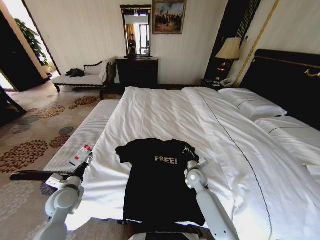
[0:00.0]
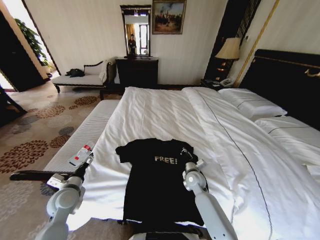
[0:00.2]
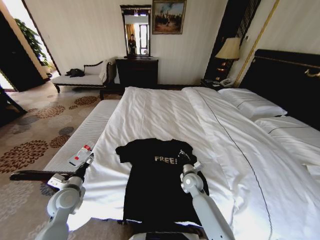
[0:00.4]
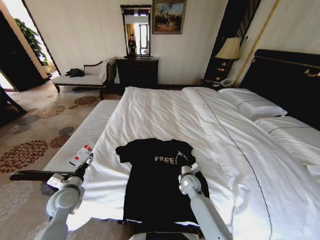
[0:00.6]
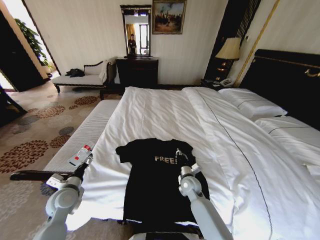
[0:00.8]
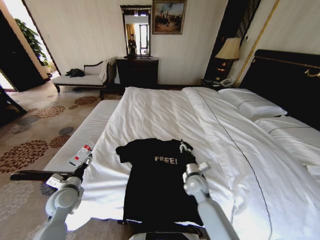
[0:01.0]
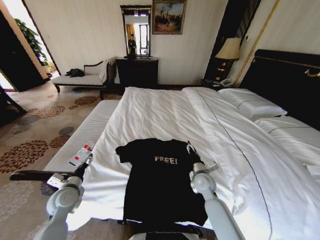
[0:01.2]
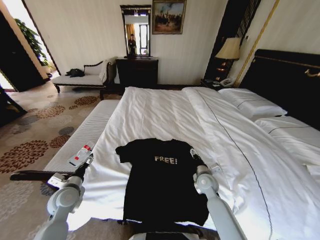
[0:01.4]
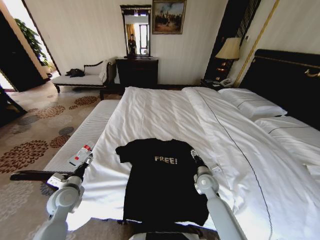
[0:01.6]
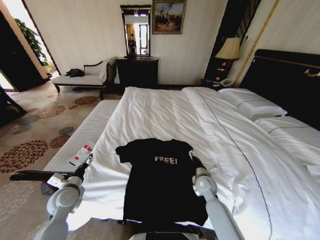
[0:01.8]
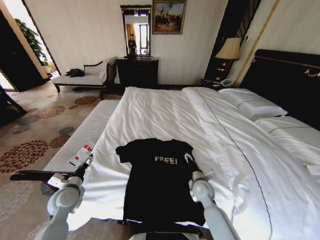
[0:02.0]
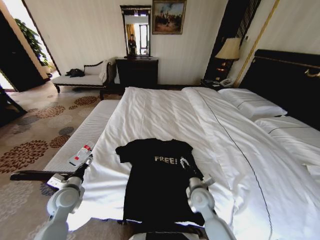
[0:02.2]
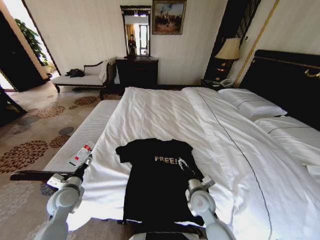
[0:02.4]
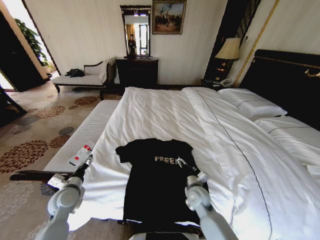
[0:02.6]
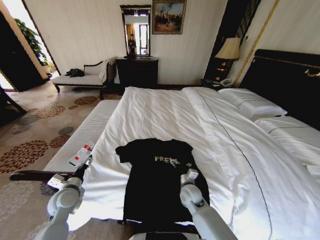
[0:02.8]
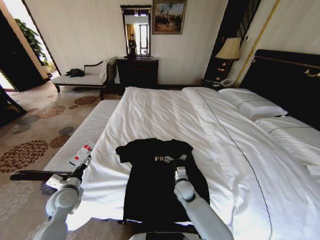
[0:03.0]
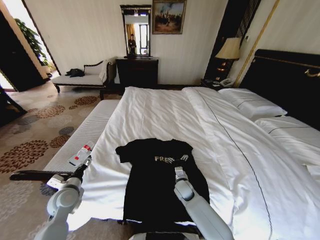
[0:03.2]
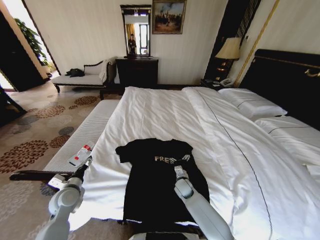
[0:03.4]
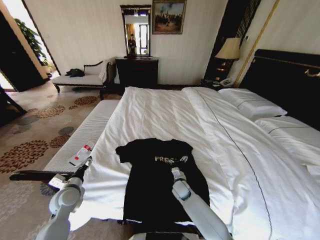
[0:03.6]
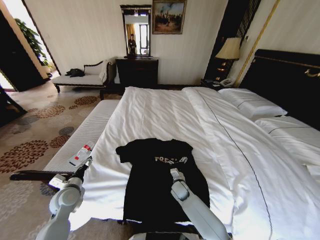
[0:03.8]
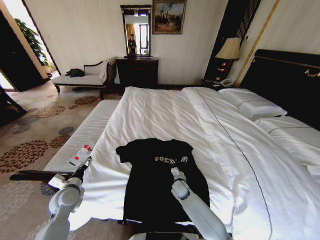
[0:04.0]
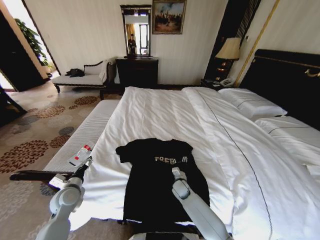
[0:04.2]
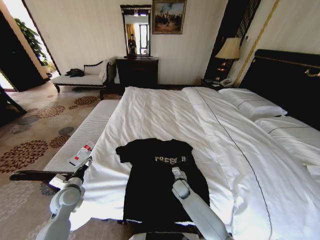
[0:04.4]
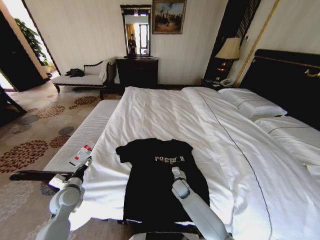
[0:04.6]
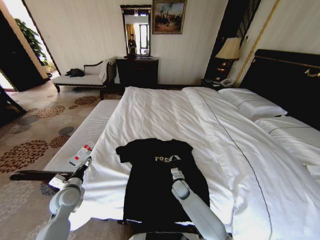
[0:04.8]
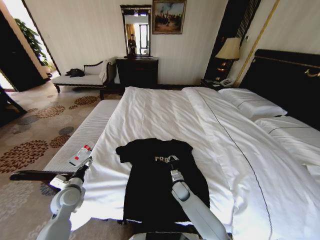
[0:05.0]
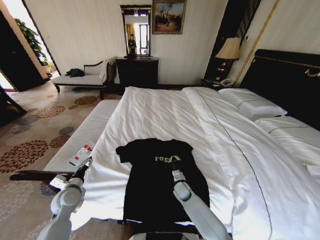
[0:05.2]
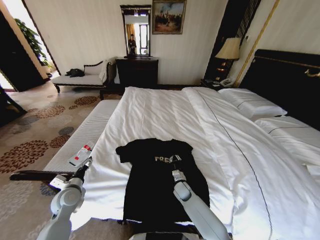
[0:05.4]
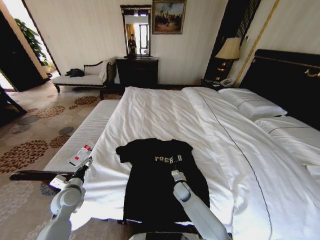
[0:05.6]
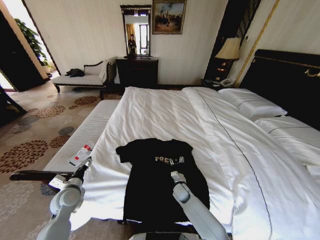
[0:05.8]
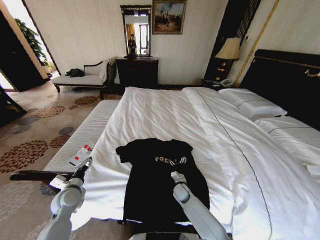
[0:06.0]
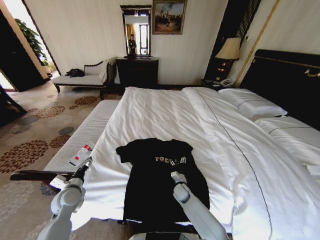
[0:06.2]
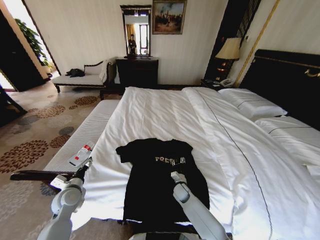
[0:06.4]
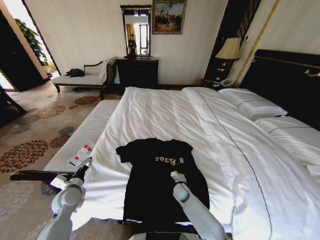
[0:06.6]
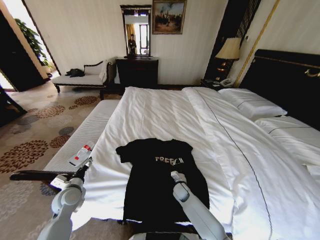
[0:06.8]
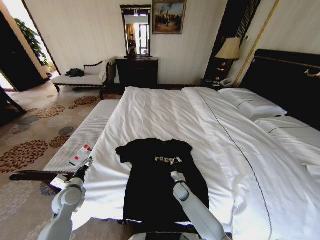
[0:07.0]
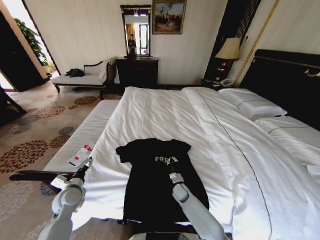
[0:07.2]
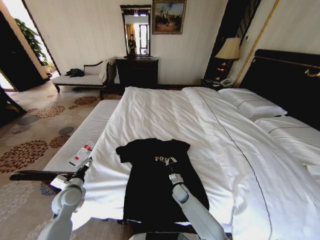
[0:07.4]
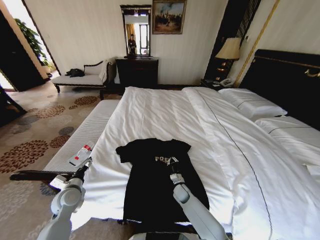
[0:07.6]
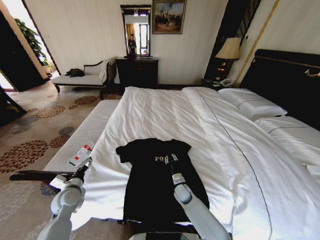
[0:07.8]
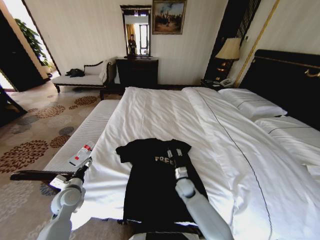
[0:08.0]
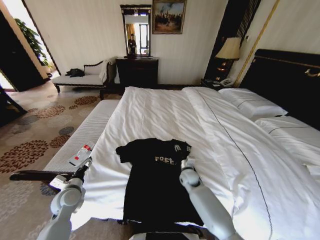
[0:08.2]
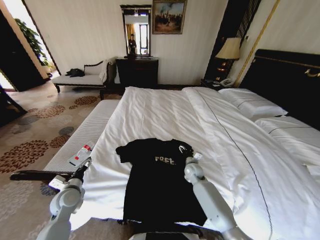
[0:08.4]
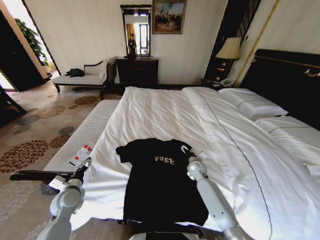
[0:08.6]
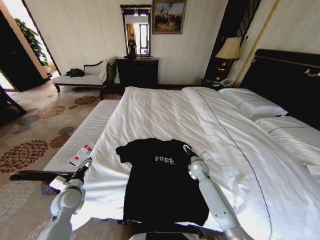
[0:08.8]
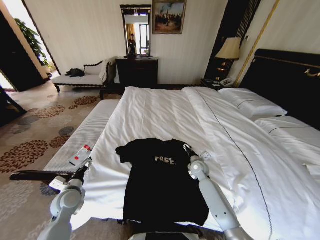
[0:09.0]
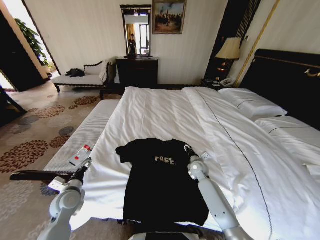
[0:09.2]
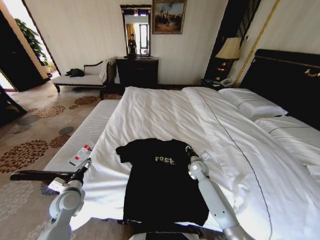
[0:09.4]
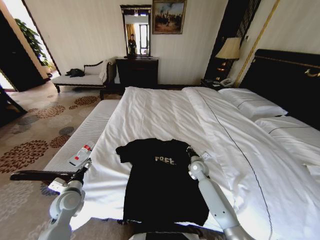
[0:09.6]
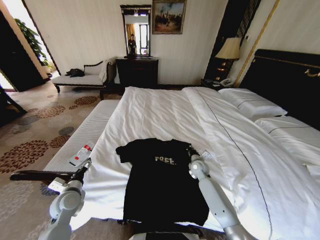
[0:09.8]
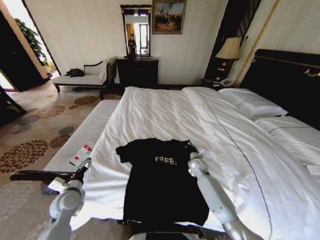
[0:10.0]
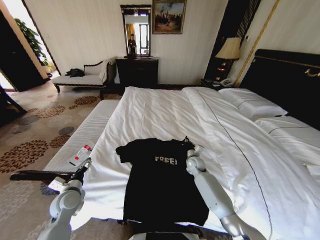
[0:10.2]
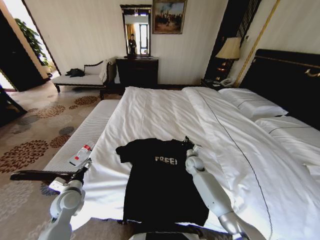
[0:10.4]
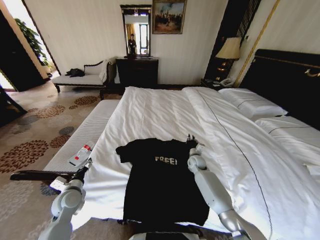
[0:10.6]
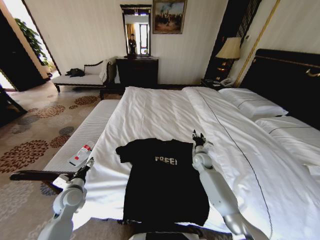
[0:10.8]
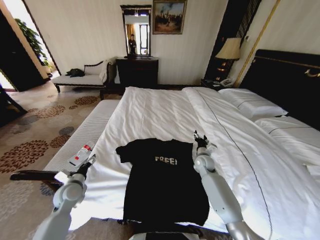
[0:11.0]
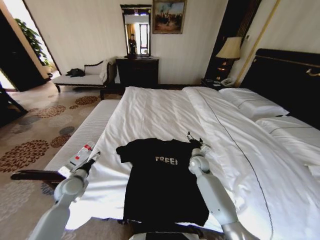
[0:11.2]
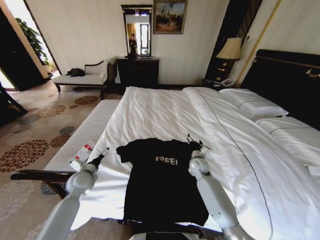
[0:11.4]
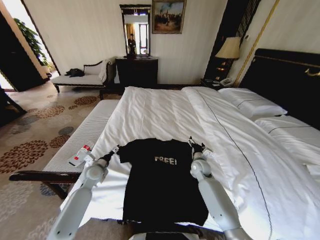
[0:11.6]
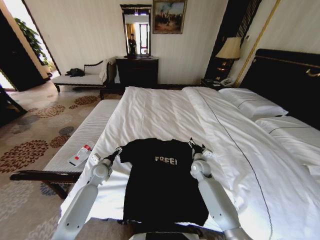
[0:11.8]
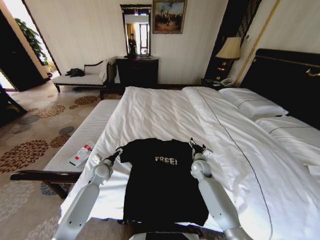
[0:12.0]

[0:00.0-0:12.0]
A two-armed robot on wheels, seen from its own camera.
Task of the whole recording: Fold the clothes on the bed.
0:00.0 to 0:01.6: The right gripper moves some 5 cm, and opens up.
0:01.6 to 0:03.0: The right gripper heads to the left, covering some 10 cm.
0:03.0 to 0:04.4: The right gripper shifts roughly 5 cm downward, and closes.
0:04.4 to 0:06.0: The right gripper opens its fingers.
0:06.0 to 0:07.6: The right gripper closes its fingers.
0:07.6 to 0:09.0: The right gripper is displaced upward, to the right and forward by some 20 cm, and opens its fingers.
0:09.0 to 0:10.4: The right gripper closes.
0:10.4 to 0:12.0: The left gripper travels forward and to the right by approximately 15 cm. The right gripper opens up.

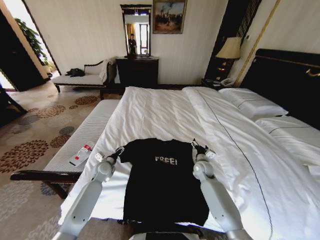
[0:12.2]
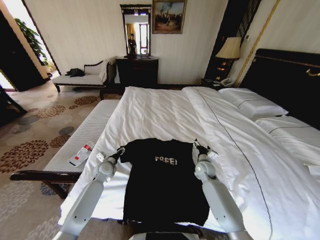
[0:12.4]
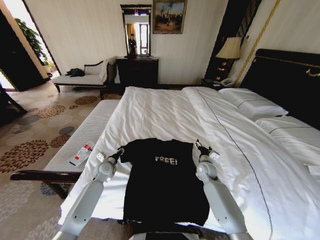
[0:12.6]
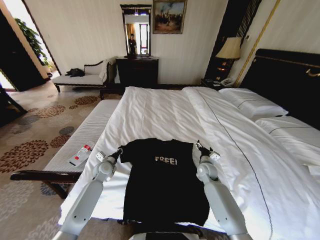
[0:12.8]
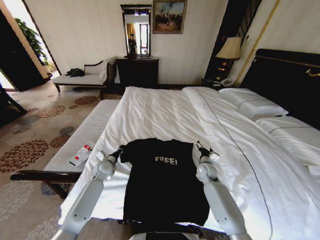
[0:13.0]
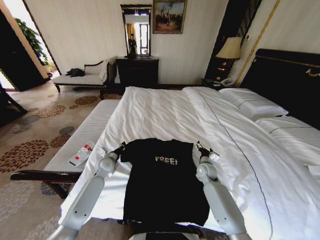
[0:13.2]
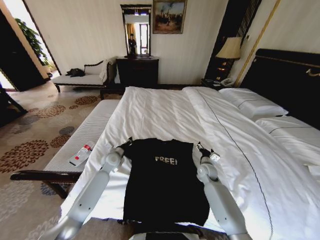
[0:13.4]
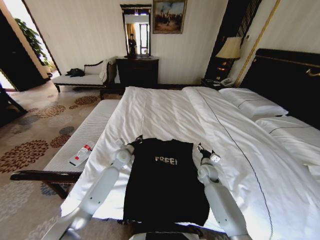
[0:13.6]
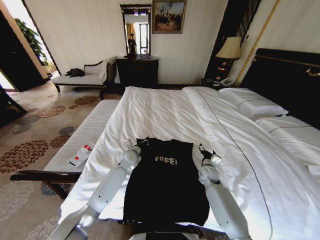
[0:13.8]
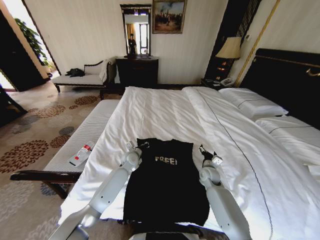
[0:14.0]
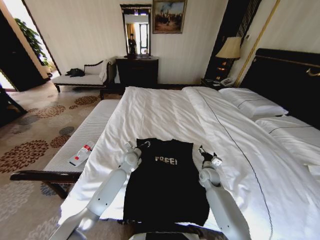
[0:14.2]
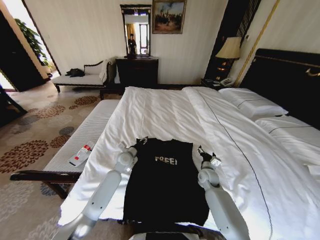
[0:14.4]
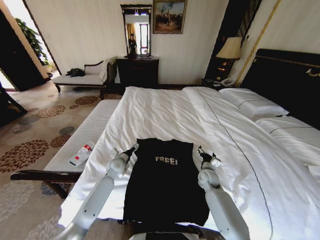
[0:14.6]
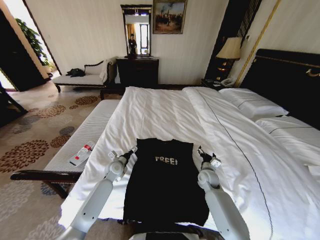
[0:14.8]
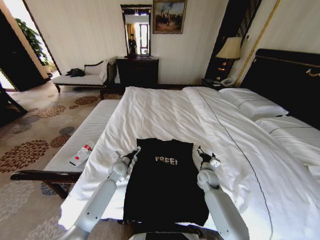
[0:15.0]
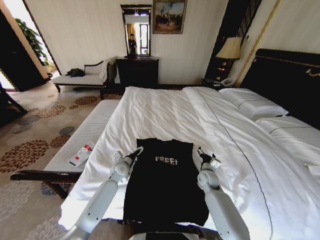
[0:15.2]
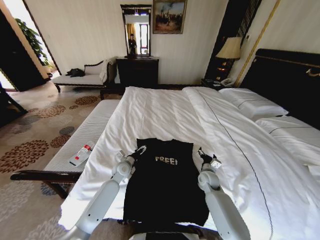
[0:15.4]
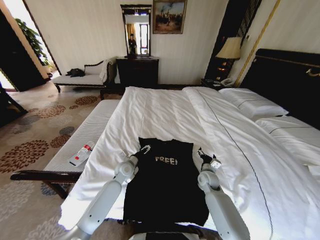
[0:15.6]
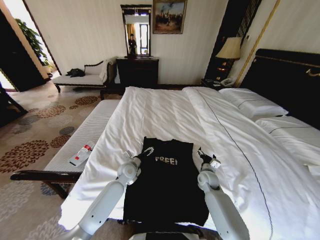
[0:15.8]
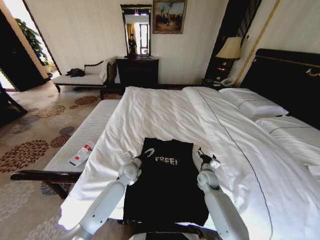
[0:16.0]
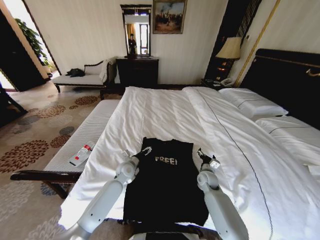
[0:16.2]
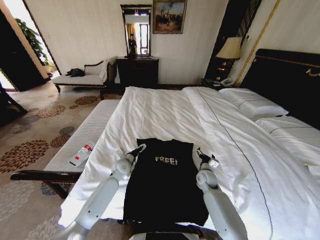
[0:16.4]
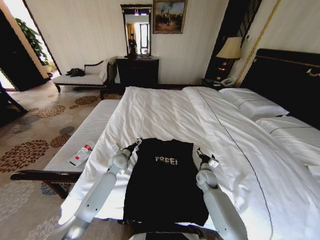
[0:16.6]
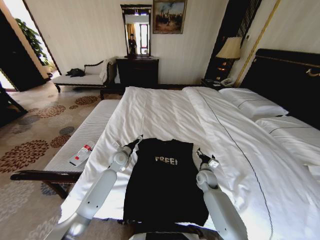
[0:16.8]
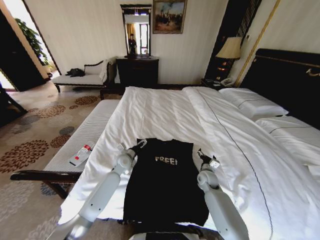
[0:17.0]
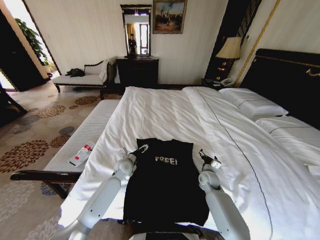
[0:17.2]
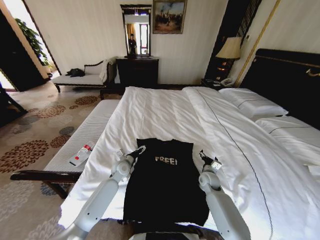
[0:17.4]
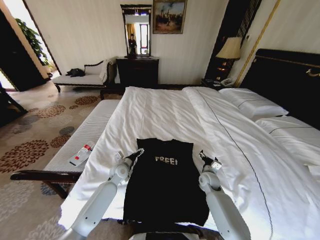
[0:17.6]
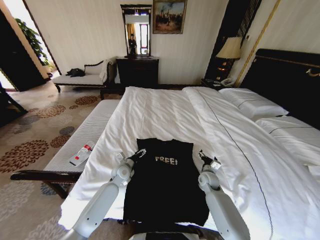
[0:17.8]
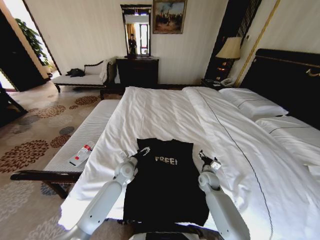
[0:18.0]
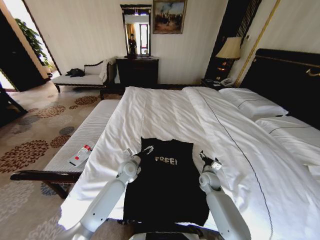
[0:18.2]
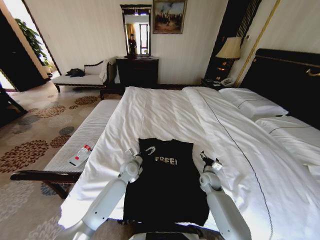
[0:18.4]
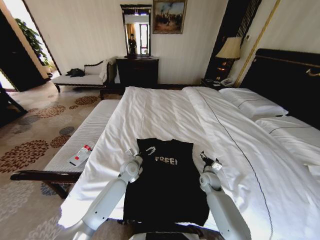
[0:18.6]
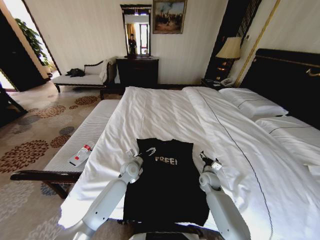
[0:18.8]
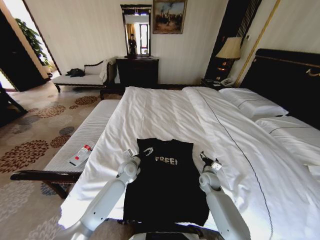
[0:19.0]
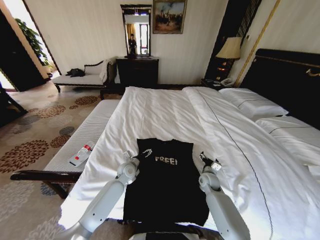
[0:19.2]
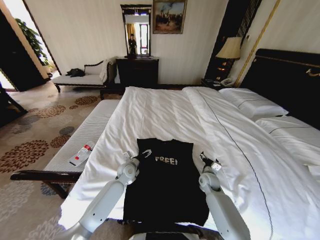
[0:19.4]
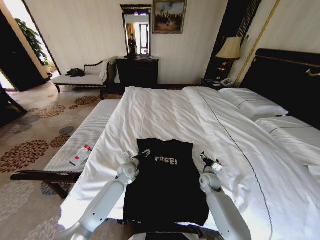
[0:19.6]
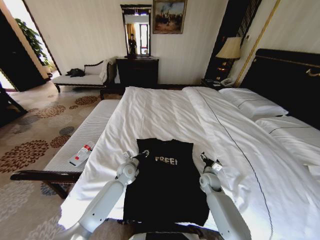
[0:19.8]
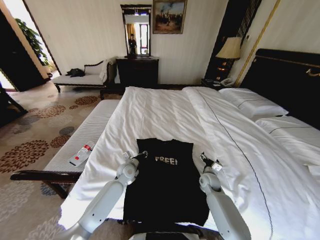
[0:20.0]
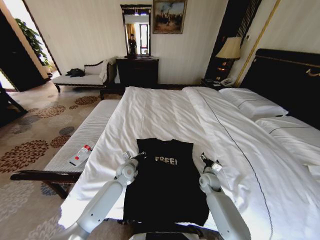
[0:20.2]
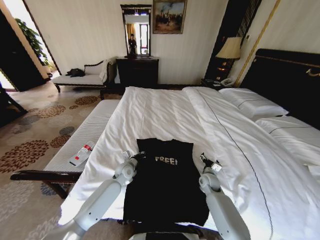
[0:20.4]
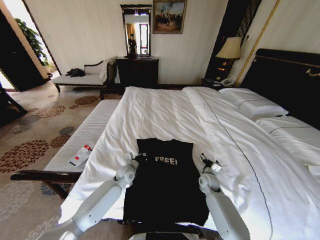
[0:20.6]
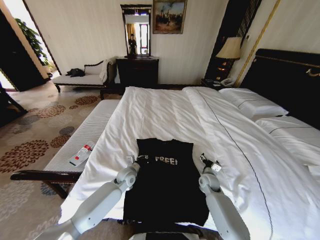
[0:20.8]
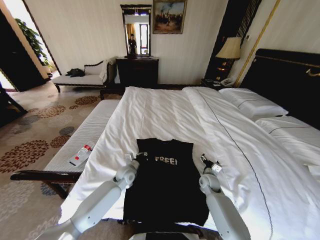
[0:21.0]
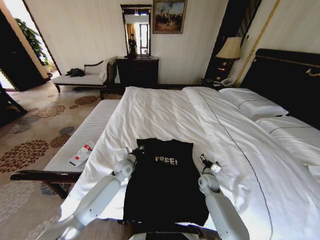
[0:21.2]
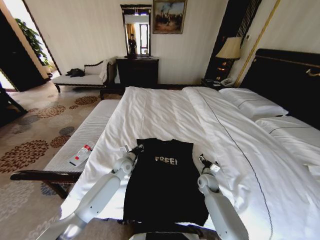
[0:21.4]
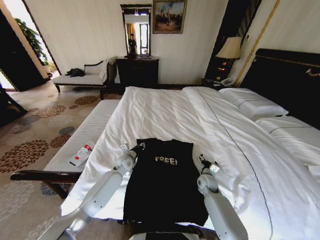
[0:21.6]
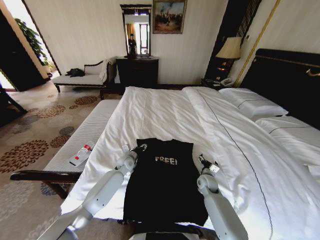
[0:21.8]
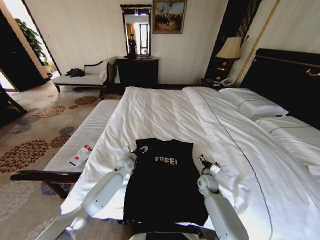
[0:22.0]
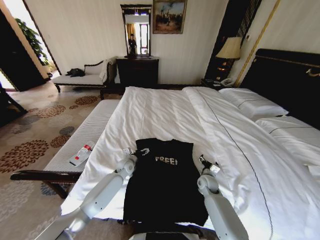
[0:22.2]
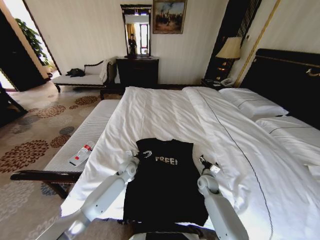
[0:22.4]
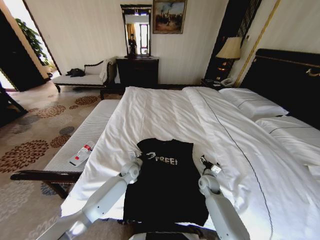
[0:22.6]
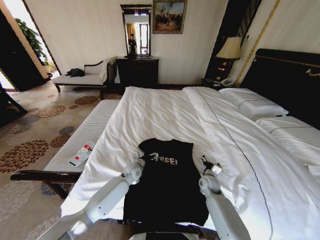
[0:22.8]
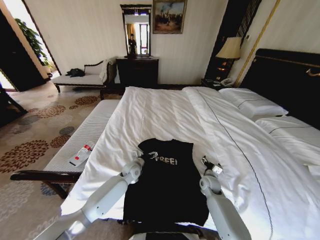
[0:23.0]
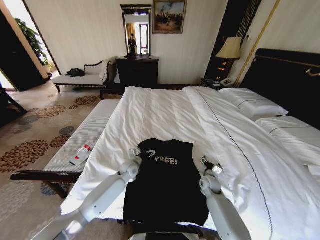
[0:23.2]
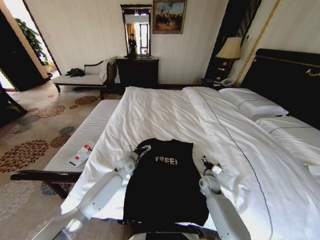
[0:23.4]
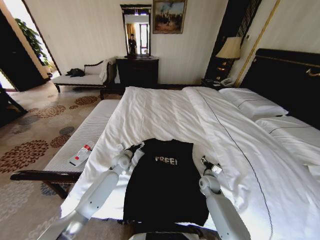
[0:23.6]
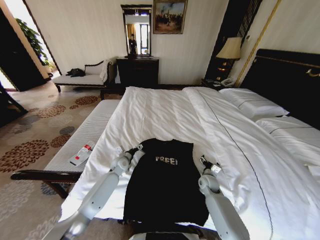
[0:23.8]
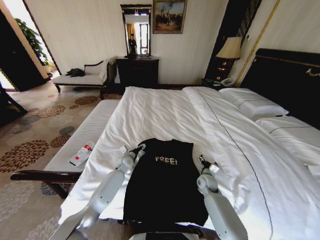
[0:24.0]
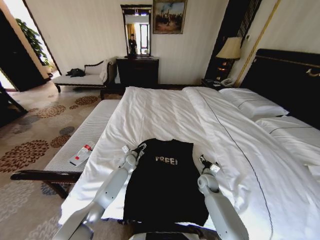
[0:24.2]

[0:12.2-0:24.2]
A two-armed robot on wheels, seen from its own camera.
Task of the whole recording: Fold the clothes on the bed.
0:12.2 to 0:13.8: The left gripper shifts approximately 15 cm to the right, and closes.
0:13.8 to 0:15.2: The left gripper changes place by some 10 cm, and opens.
0:15.2 to 0:16.6: The grippers make only small movements.
0:16.6 to 0:18.2: The left gripper is displaced to the right by approximately 5 cm.
0:18.2 to 0:19.8: The left gripper closes its fingers.
0:19.8 to 0:21.2: The left gripper closes up.
0:21.2 to 0:22.6: The left gripper opens up.
0:22.6 to 0:24.2: The left gripper moves forward, approximately 5 cm.
